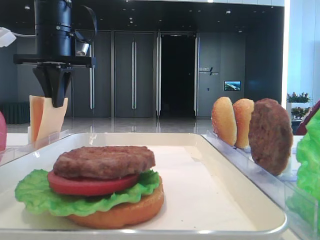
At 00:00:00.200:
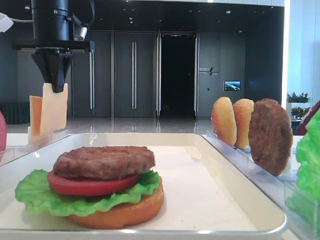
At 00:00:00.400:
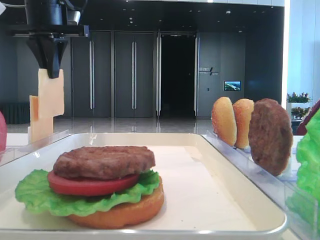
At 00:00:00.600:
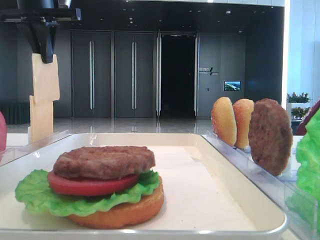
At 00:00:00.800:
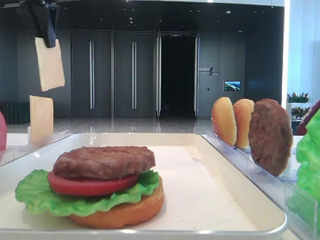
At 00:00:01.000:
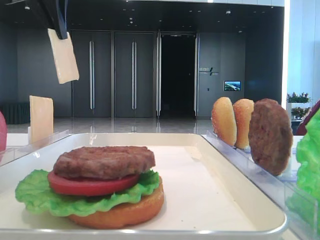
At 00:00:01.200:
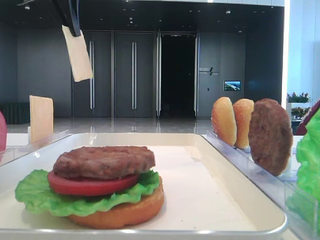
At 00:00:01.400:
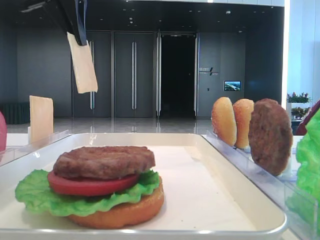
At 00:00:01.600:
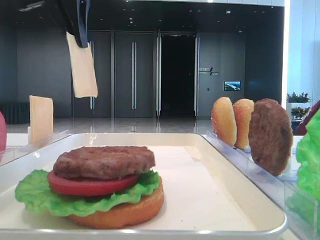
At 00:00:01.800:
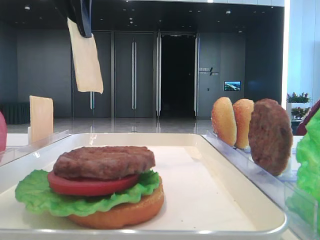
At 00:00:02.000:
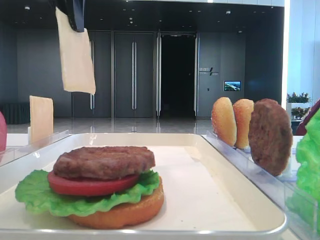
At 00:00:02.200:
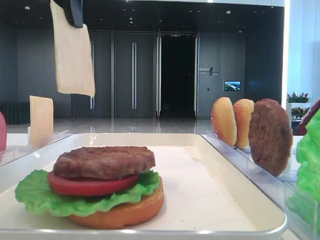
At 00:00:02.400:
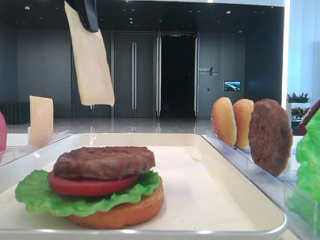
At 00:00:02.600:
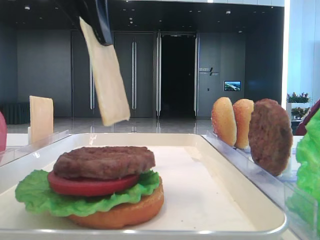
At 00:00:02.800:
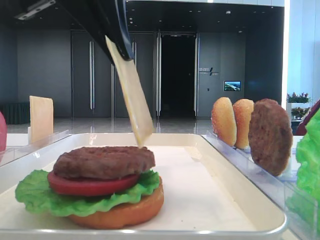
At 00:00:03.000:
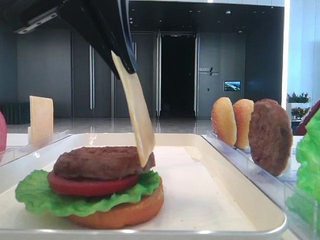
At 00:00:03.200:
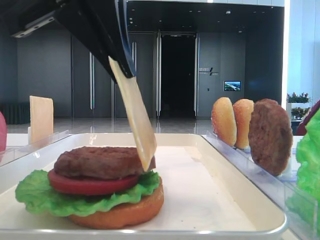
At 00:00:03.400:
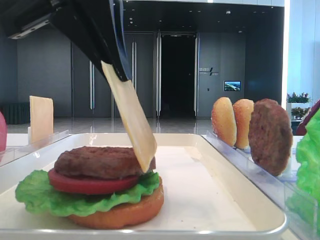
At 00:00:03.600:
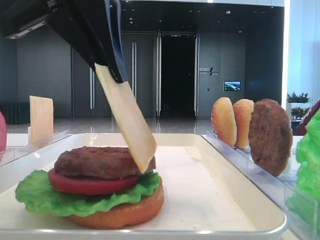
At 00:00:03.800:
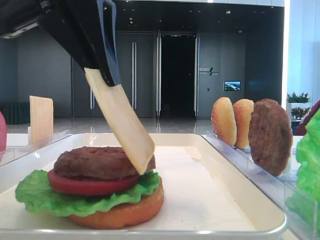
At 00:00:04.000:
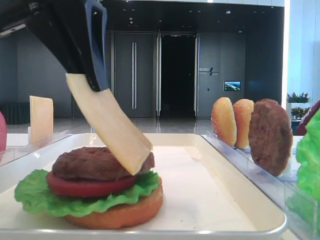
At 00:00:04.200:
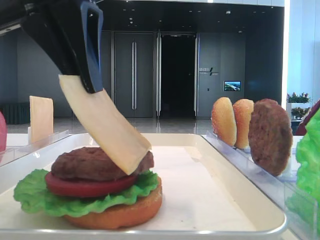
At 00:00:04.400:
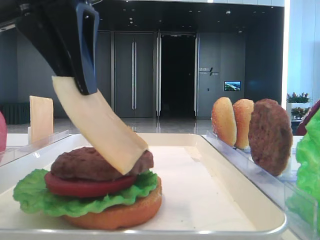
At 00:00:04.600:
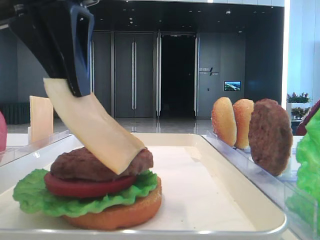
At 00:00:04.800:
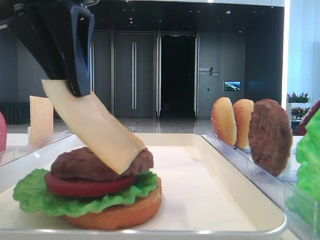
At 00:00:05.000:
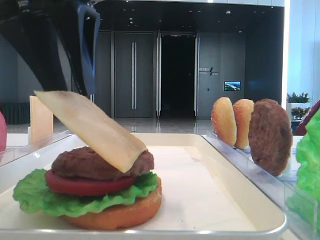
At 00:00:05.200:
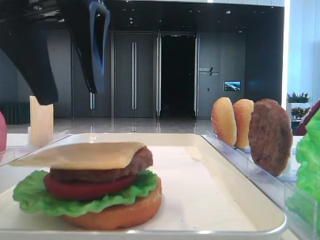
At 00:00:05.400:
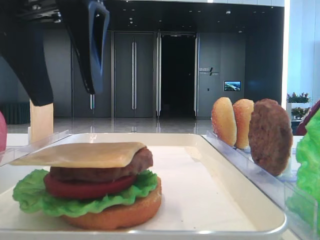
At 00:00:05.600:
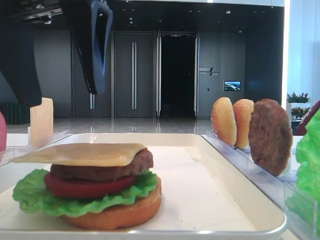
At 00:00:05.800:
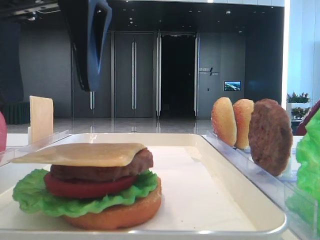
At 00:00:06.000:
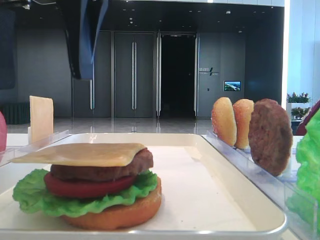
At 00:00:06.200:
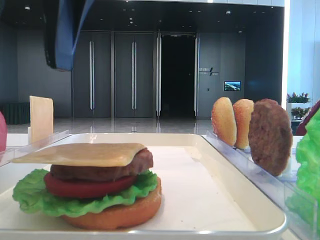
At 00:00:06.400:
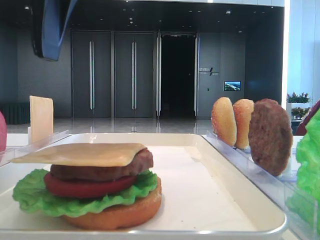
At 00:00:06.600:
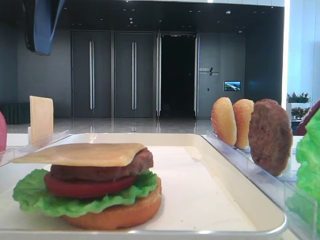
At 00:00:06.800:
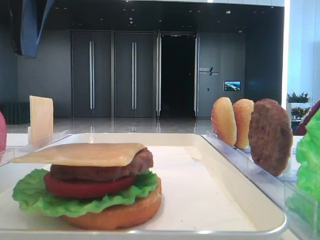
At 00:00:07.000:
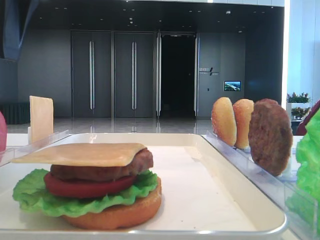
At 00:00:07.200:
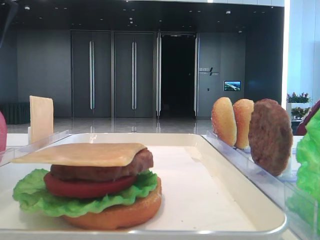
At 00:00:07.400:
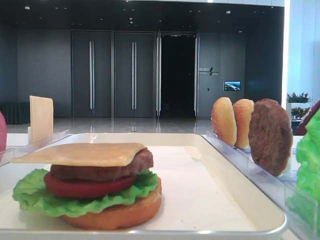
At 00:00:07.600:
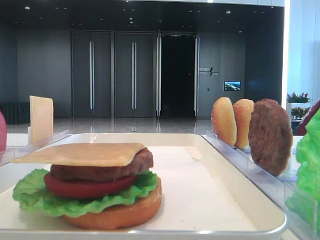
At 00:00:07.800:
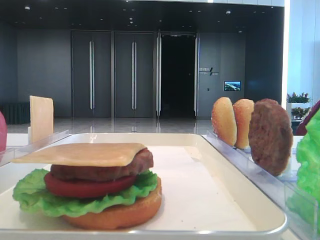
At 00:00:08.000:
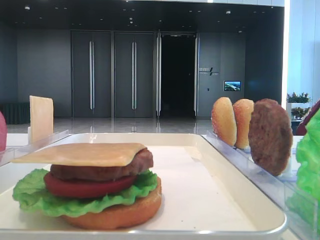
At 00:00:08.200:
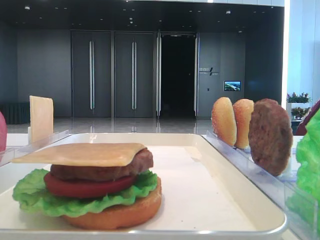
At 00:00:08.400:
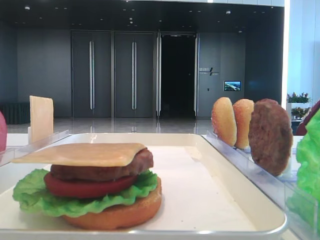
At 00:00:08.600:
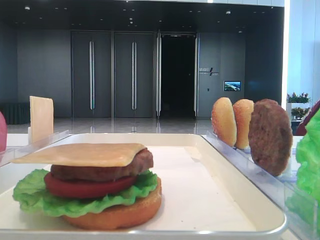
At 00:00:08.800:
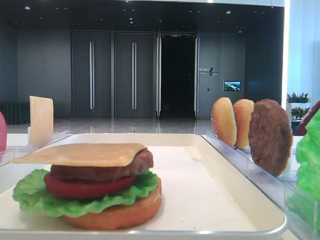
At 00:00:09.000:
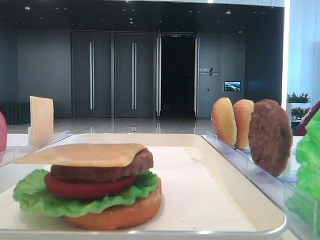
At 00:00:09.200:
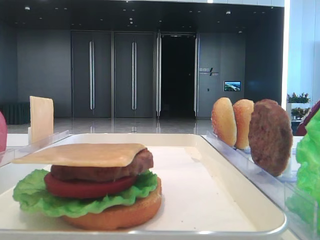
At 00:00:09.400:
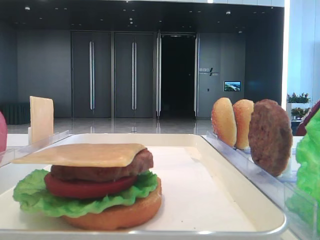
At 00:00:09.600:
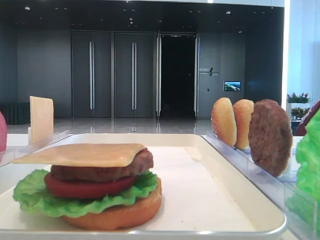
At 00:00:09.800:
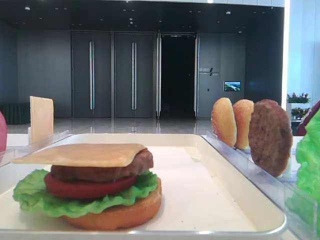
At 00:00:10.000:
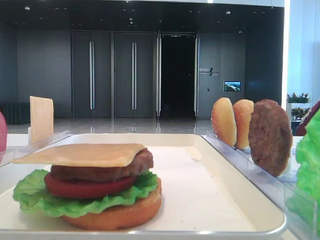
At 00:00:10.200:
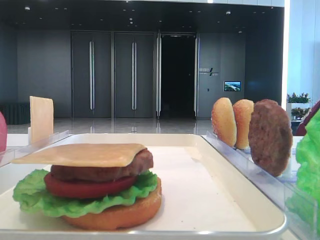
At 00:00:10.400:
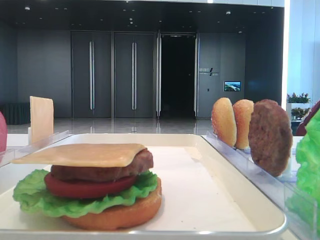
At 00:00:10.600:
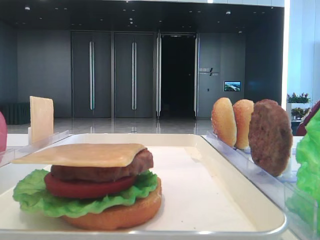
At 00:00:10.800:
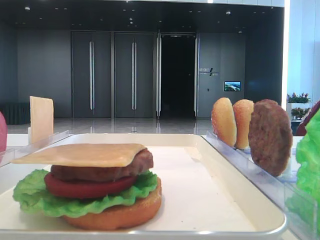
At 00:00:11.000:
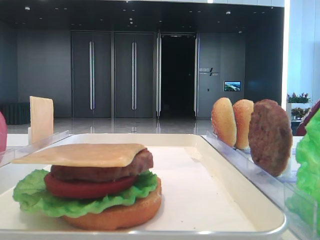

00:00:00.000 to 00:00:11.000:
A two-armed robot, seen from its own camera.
Step, 00:00:00.000 to 00:00:05.000: Place the cheese slice on the patty with the left hand.
00:00:00.000 to 00:00:01.600: The left gripper travels upward and backward by approximately 10 cm.
00:00:01.600 to 00:00:03.200: The left gripper heads backward, downward and to the right, covering about 20 cm.
00:00:03.200 to 00:00:04.800: The grippers make only small movements.
00:00:04.800 to 00:00:06.200: The left gripper opens up.
00:00:06.200 to 00:00:07.800: The left gripper is displaced to the left and forward by approximately 20 cm.

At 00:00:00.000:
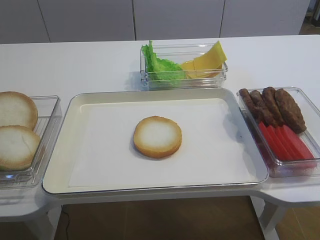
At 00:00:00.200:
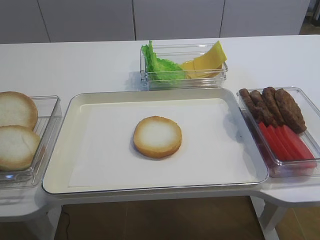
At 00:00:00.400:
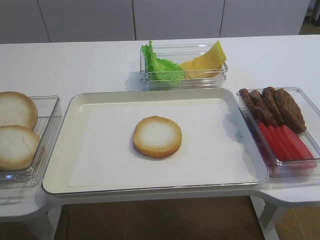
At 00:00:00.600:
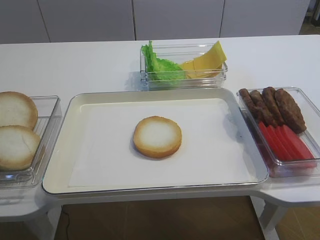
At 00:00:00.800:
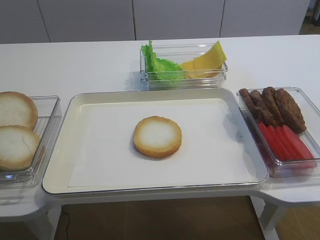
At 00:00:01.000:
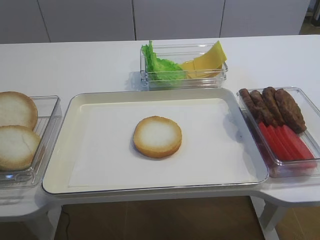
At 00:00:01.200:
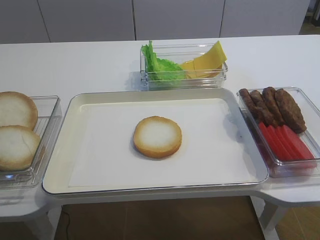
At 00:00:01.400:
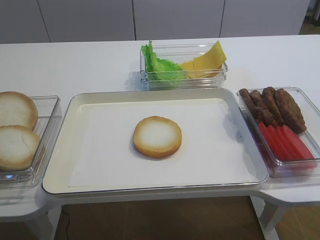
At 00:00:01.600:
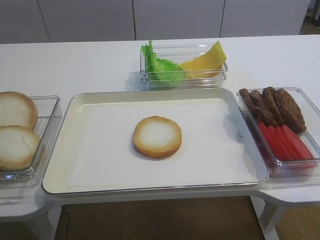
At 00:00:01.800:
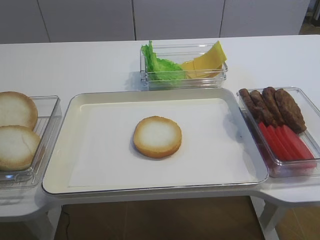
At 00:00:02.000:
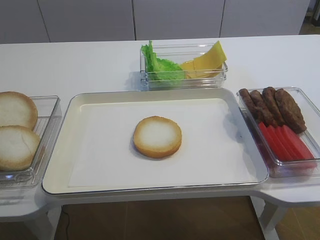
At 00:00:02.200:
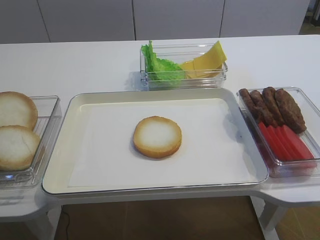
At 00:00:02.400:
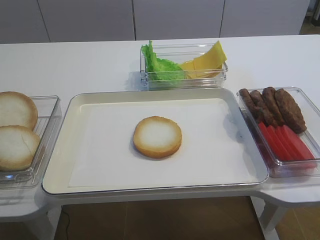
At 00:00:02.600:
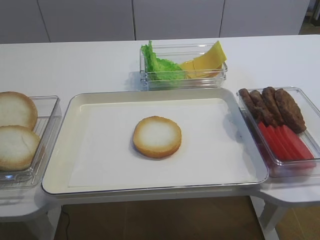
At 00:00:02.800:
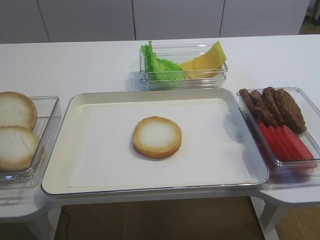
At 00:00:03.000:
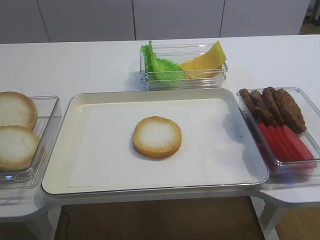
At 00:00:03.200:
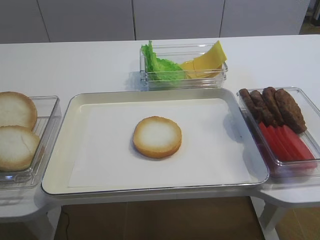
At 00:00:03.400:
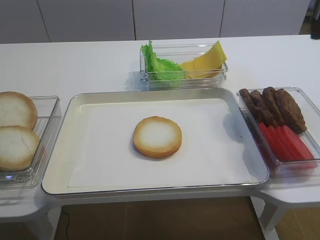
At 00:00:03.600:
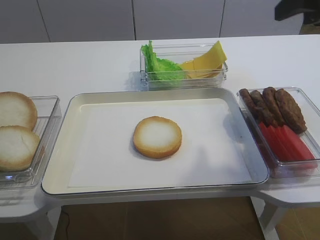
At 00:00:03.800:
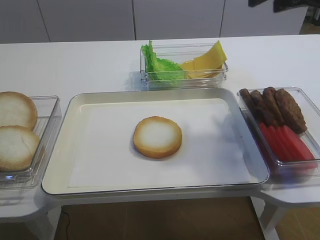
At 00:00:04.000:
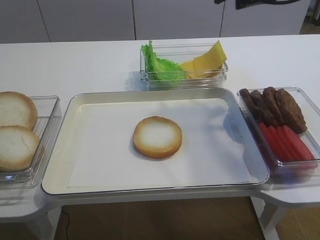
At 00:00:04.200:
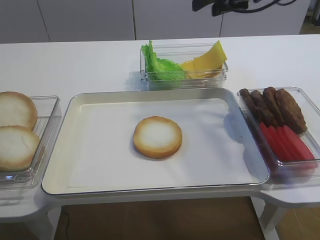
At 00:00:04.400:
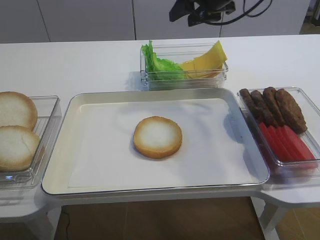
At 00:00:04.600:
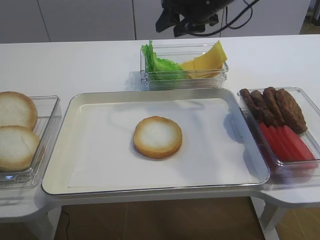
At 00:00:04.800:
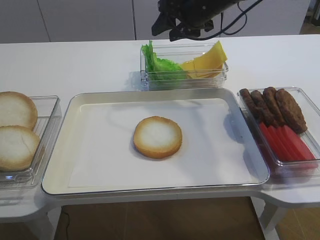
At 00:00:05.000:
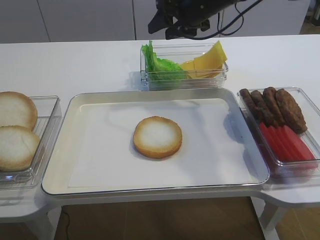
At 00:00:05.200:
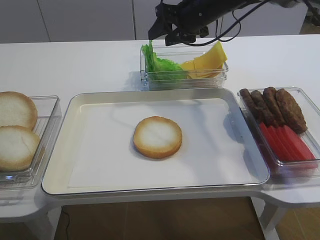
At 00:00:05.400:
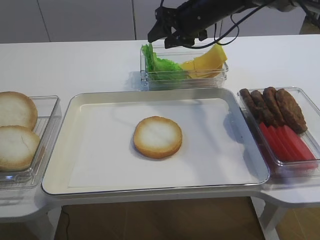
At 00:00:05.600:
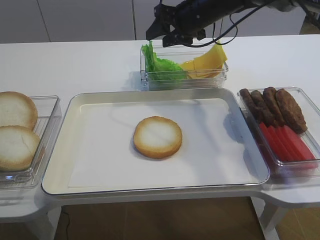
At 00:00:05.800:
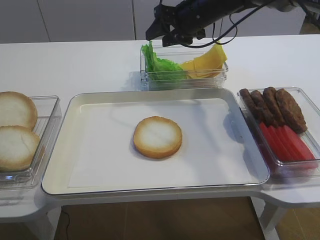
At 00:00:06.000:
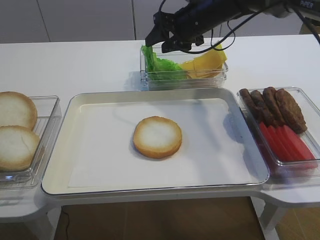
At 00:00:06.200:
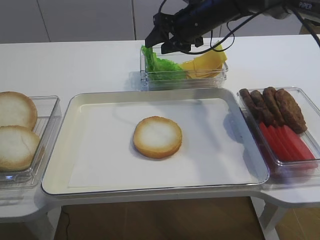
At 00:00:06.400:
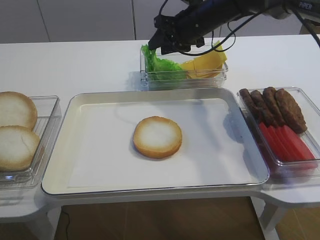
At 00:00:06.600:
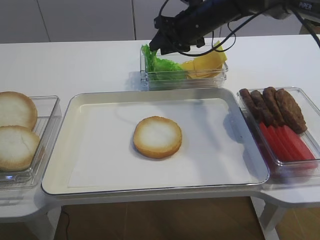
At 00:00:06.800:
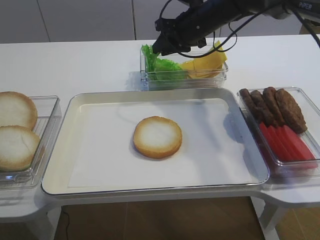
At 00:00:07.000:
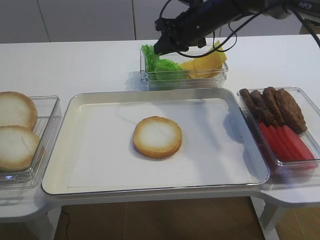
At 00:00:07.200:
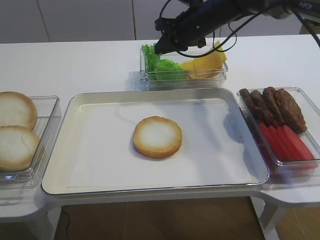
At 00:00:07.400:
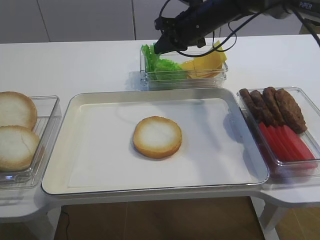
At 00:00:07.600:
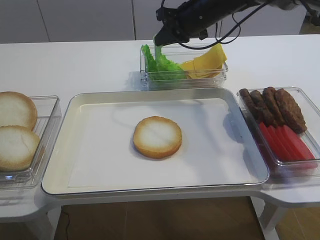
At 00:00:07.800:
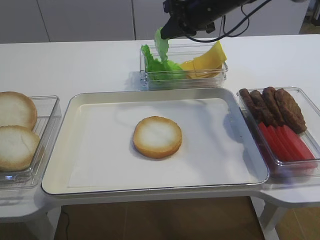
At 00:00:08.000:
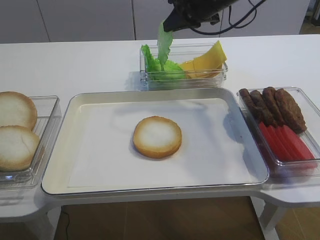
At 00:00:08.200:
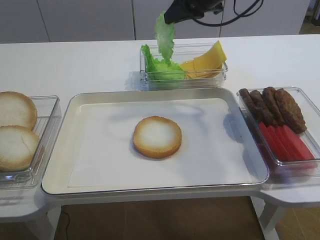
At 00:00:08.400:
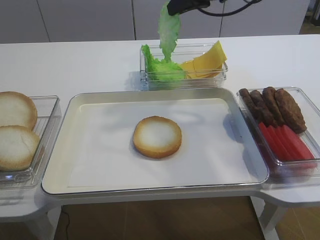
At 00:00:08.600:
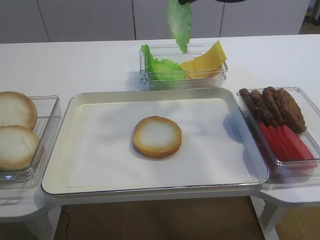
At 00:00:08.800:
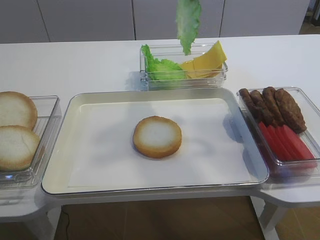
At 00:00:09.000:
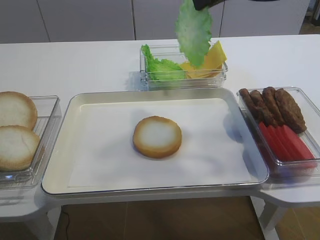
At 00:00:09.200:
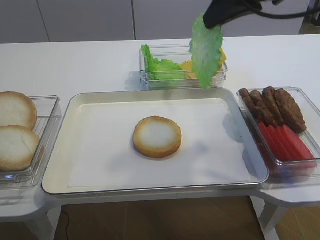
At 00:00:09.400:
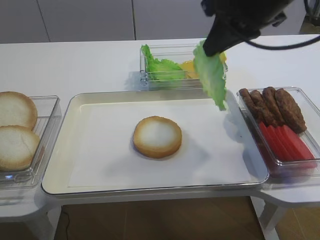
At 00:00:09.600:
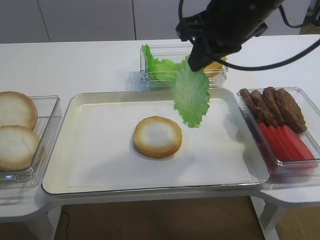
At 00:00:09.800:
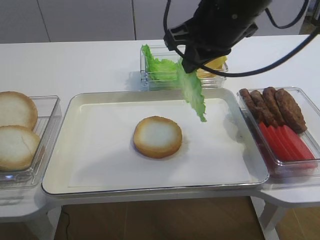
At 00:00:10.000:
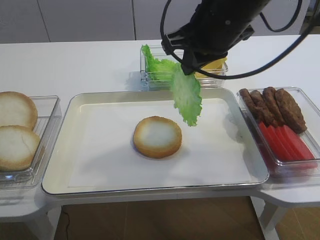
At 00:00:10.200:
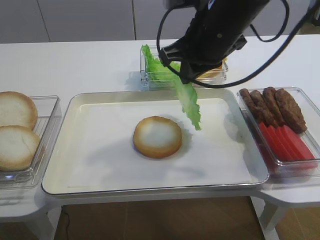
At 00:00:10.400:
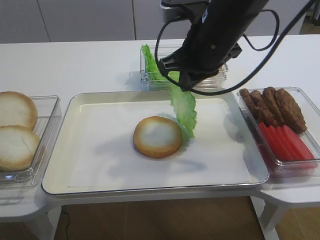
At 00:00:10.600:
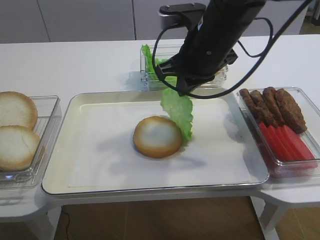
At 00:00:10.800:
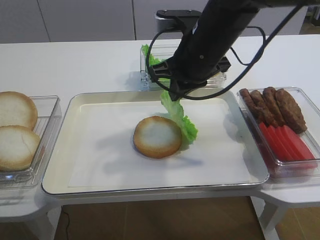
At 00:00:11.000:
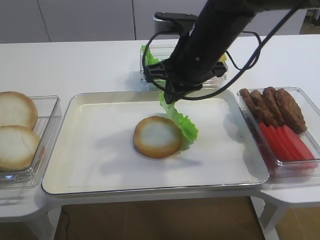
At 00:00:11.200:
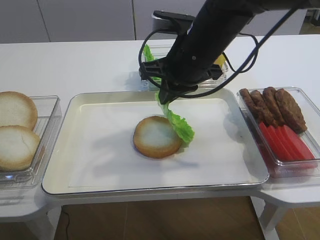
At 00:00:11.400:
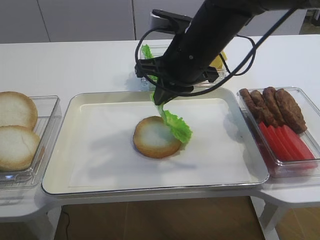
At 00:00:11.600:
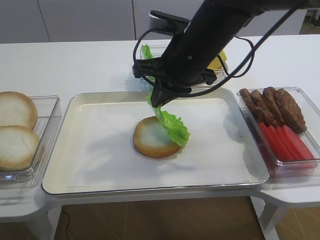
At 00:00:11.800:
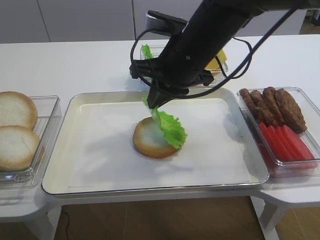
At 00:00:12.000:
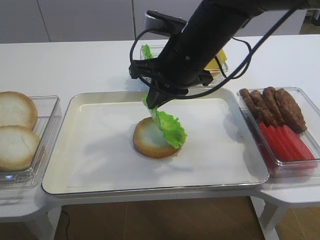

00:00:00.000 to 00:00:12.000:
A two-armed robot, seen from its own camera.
Step, 00:00:00.000 to 00:00:08.000: Pick up the lettuce leaf with the right gripper.
00:00:01.600 to 00:00:03.000: The right gripper is displaced forward and upward by about 10 cm, and opens its fingers.
00:00:03.000 to 00:00:04.400: The right gripper goes roughly 40 cm forward.
00:00:04.400 to 00:00:06.000: The right gripper is displaced downward by some 5 cm.
00:00:06.000 to 00:00:07.600: The right gripper closes.
00:00:07.600 to 00:00:09.000: The right gripper shifts some 20 cm upward, backward and to the right.
00:00:09.000 to 00:00:10.400: The right gripper is displaced downward and to the left by about 10 cm.
00:00:10.400 to 00:00:12.000: There are only small adjustments of the grippers.
